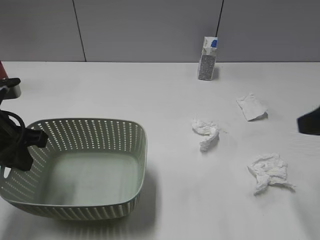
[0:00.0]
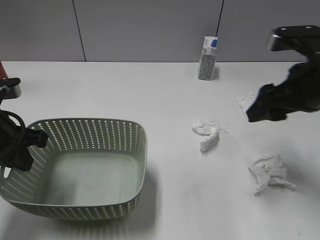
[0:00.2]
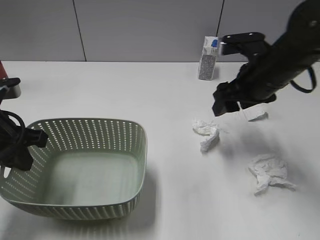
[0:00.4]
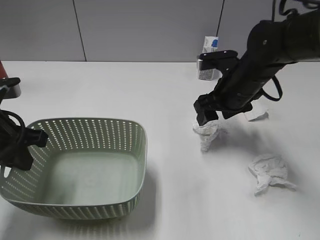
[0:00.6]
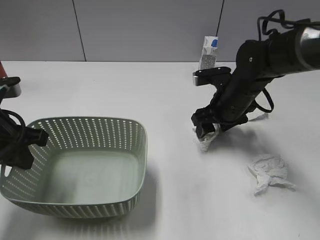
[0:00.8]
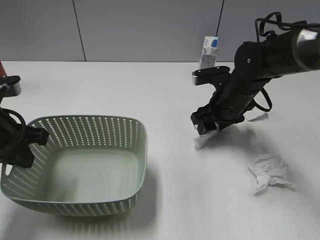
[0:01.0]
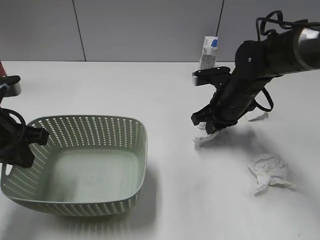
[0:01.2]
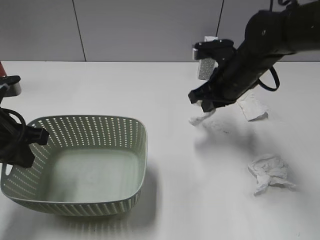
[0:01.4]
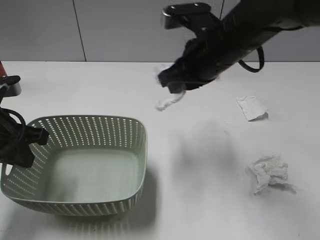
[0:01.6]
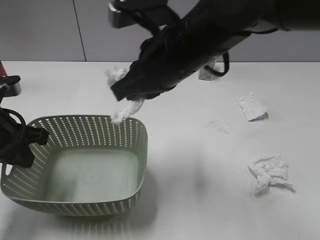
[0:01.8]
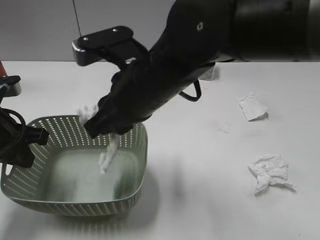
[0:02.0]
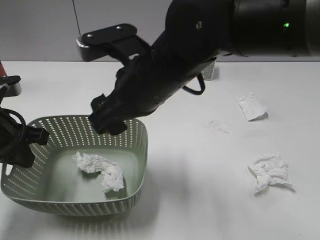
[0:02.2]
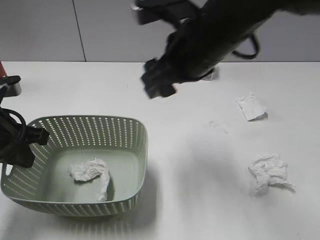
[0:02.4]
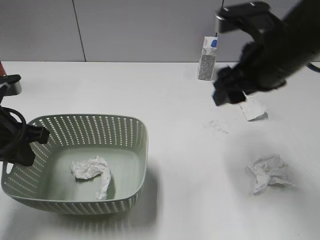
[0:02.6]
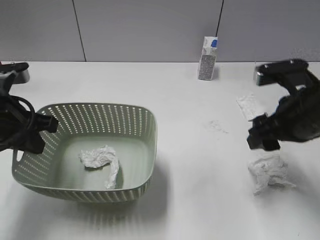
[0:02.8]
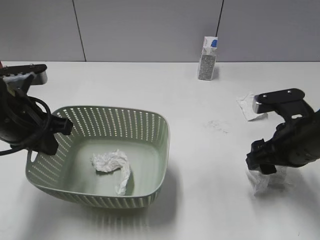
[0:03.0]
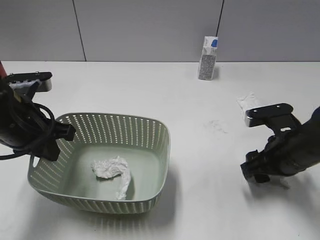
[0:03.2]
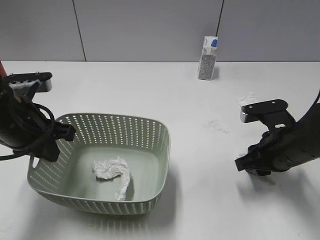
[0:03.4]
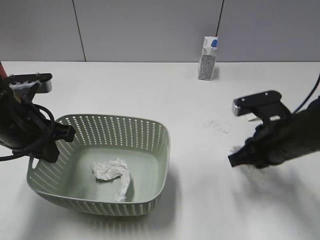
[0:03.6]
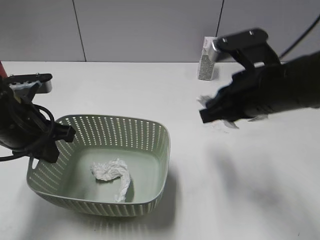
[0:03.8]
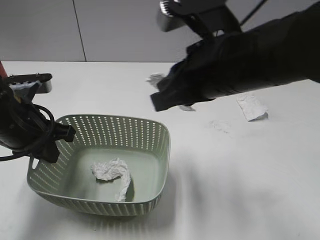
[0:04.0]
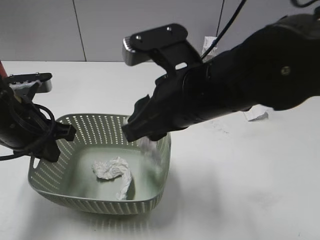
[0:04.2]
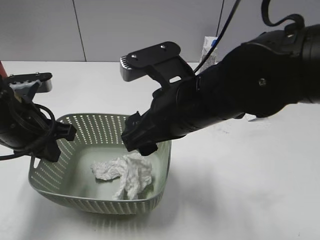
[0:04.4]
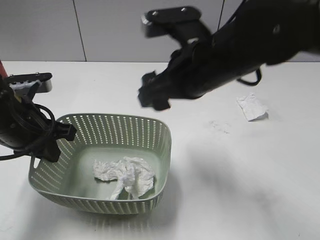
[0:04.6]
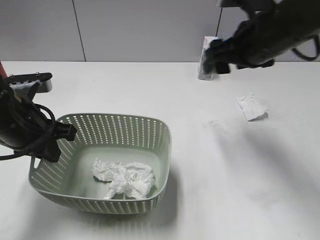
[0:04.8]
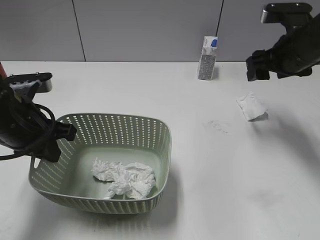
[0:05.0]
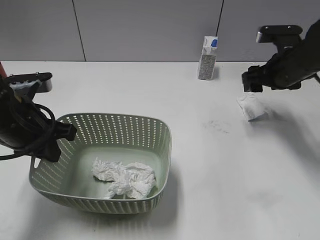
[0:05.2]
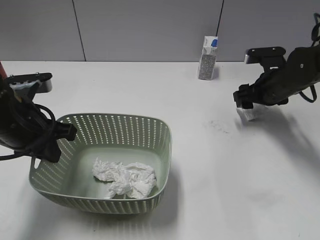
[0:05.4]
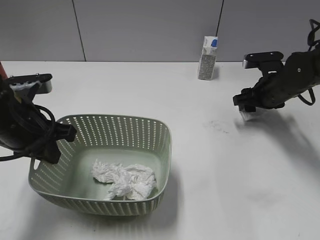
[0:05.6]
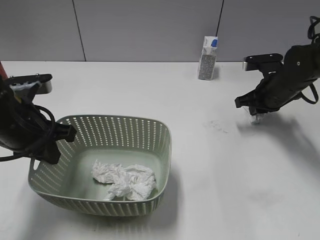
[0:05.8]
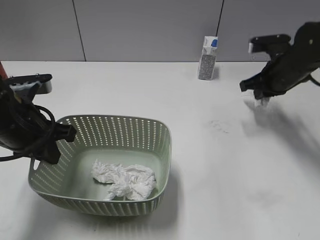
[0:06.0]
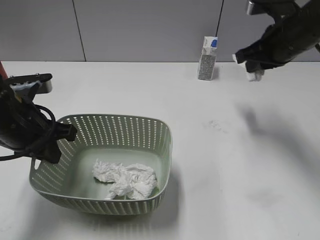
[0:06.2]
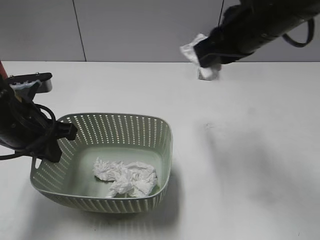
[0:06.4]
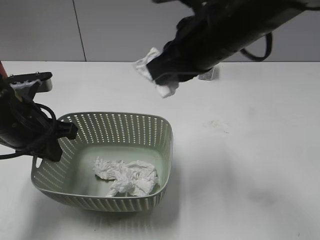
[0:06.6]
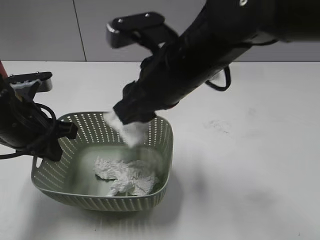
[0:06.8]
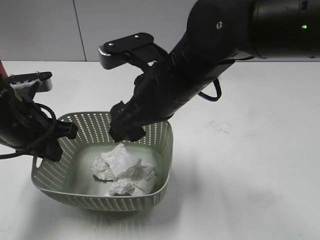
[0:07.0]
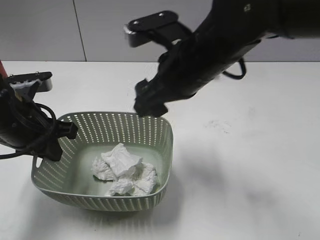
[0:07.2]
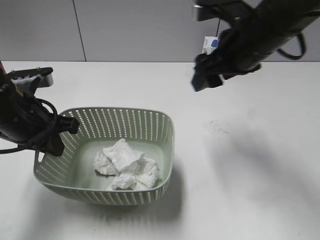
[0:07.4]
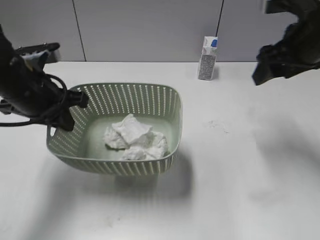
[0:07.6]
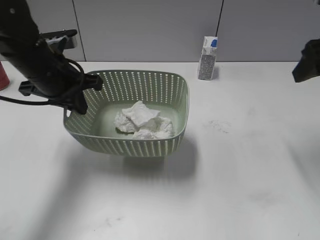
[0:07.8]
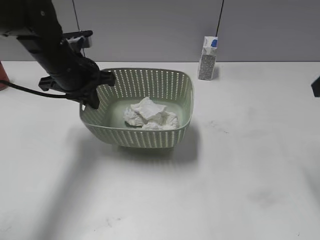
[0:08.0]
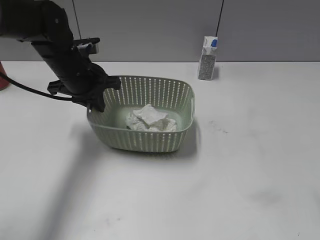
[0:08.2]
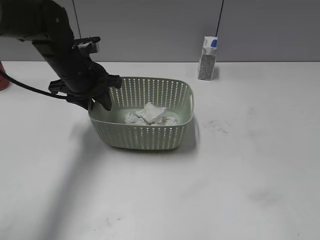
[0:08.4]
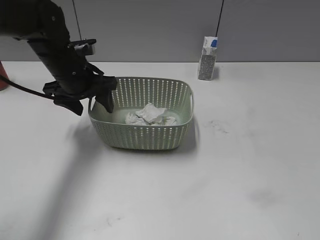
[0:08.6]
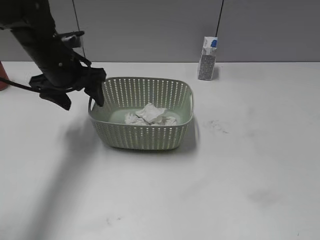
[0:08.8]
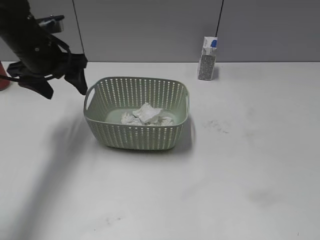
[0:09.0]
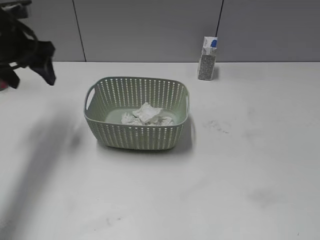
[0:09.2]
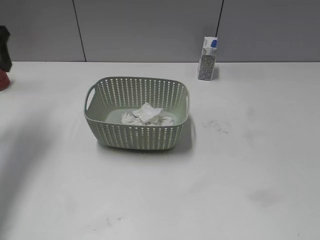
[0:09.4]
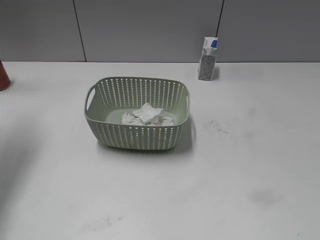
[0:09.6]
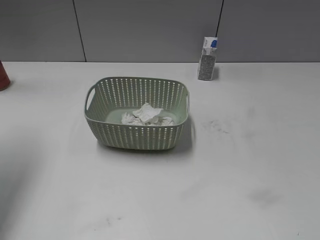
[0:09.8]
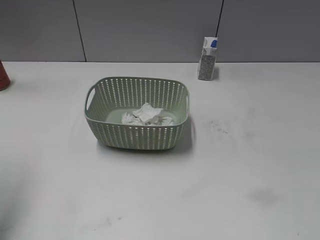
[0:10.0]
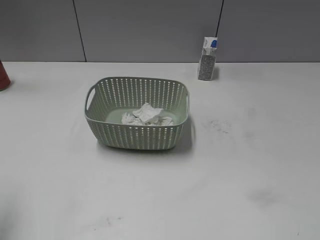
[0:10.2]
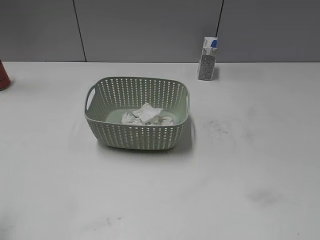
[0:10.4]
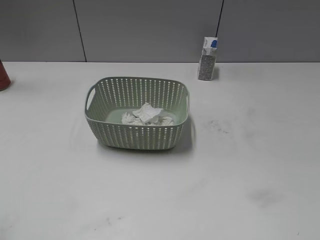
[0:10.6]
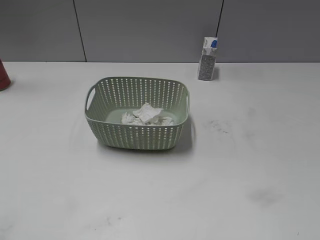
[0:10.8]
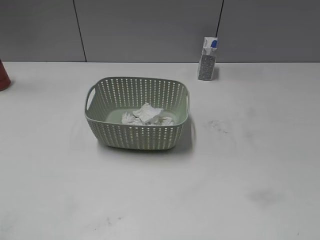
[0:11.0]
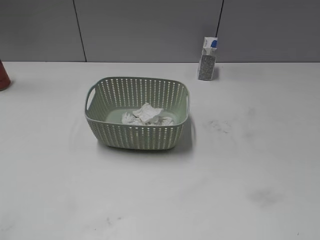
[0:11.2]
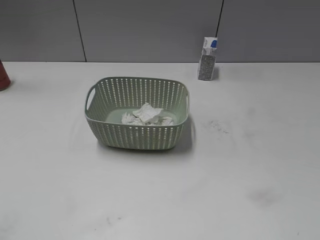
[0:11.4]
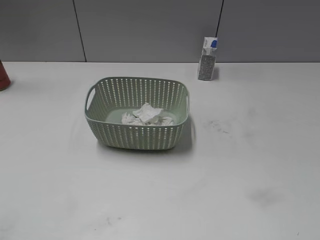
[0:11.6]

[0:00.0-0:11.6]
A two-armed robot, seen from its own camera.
Step, 0:00.0 to 0:01.2: Grasp the waste paper with right gripper.
Step, 0:01.4 to 0:02.2: Place the waste paper in the basket with right gripper.
Step, 0:02.4 to 0:03.4: Grasp the waste paper with right gripper.
Step, 0:03.6 to 0:04.4: Place the waste paper in the basket with right gripper.
Step, 0:04.6 to 0:05.8: Grasp the waste paper with right gripper.
Step, 0:06.0 to 0:07.0: Place the waste paper in the basket with right gripper.
Step, 0:07.2 to 0:08.4: Place the basket on the table with left gripper.
0:00.0 to 0:01.4: The right gripper shifts roughly 25 cm forward, to the left and downward, and closes its fingers.
0:01.4 to 0:02.8: The right gripper is displaced backward by some 10 cm, travels to the left and back again, some 15 cm each way, and opens up.
0:02.8 to 0:04.4: The right gripper travels to the left by about 15 cm, and closes, then opens again.
0:04.4 to 0:05.8: The right gripper heads to the right, forward and downward, covering some 30 cm, and closes.
0:05.8 to 0:07.2: The right gripper is displaced to the left, upward and backward by roughly 25 cm, and opens its fingers.
0:07.2 to 0:08.8: The right gripper heads to the right and backward, covering some 35 cm, while the left gripper moves forward, some 15 cm, and opens its fingers.
0:08.8 to 0:10.2: The left gripper shifts roughly 30 cm backward, upward and to the left.

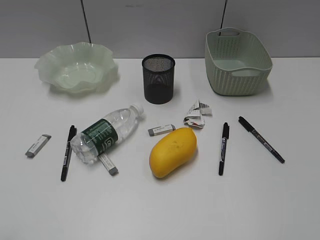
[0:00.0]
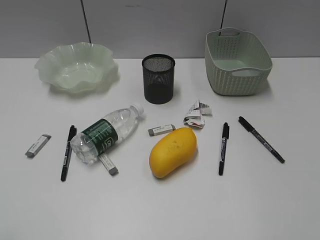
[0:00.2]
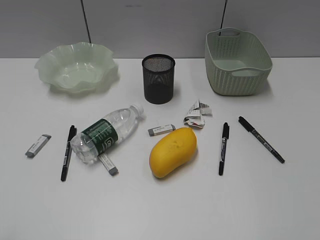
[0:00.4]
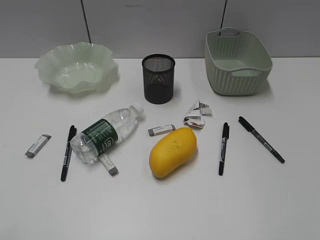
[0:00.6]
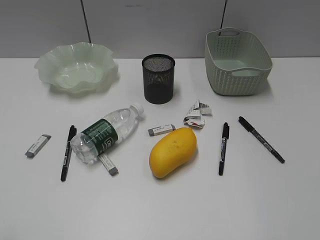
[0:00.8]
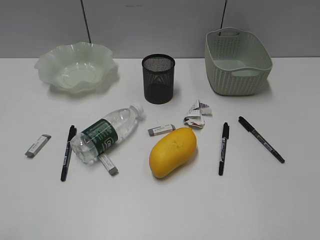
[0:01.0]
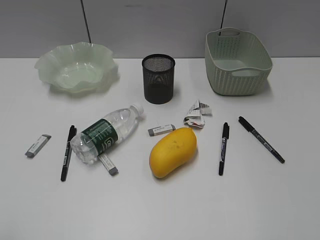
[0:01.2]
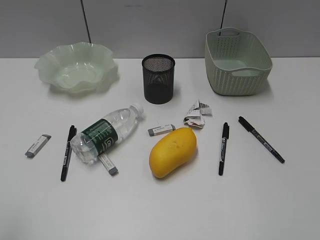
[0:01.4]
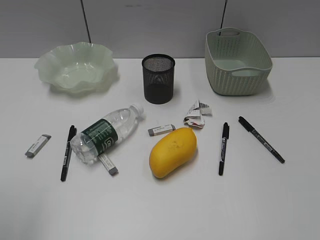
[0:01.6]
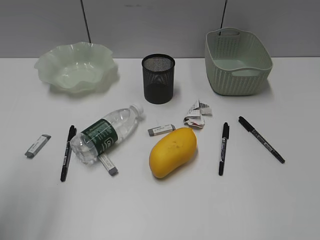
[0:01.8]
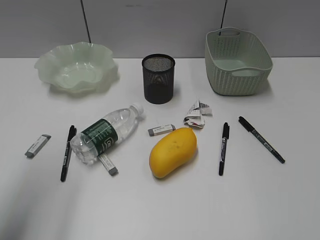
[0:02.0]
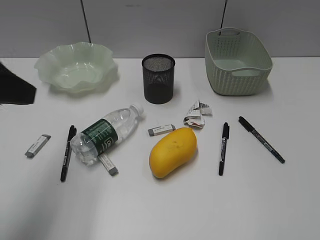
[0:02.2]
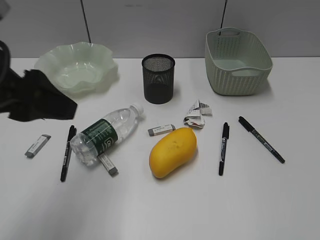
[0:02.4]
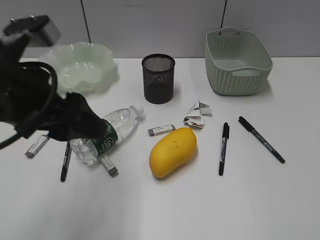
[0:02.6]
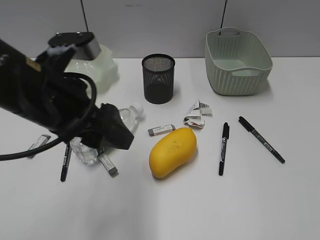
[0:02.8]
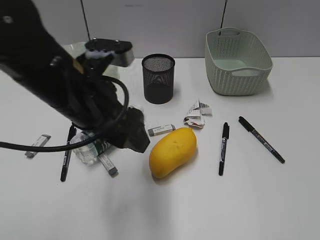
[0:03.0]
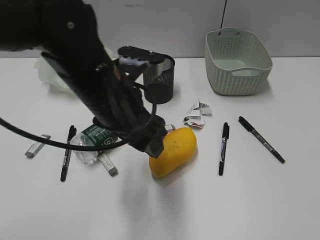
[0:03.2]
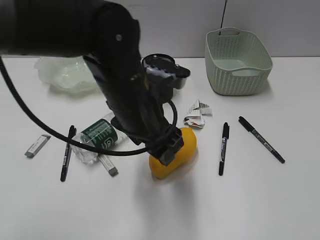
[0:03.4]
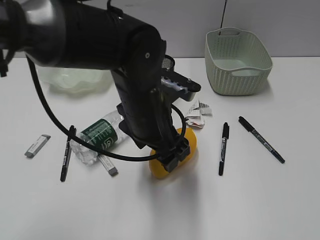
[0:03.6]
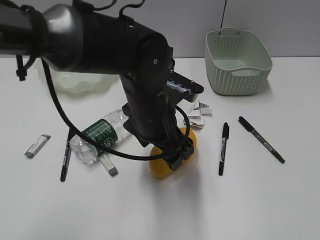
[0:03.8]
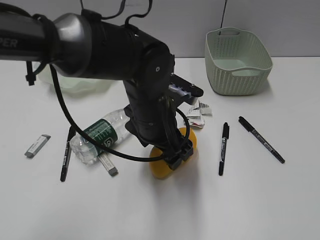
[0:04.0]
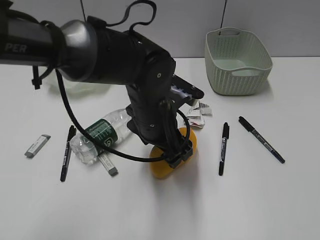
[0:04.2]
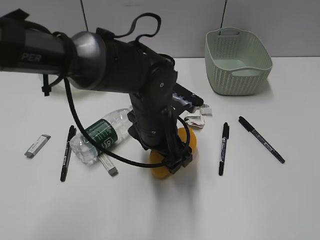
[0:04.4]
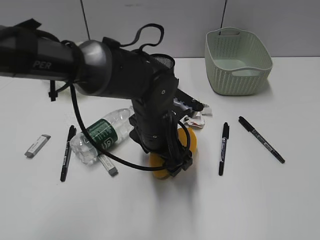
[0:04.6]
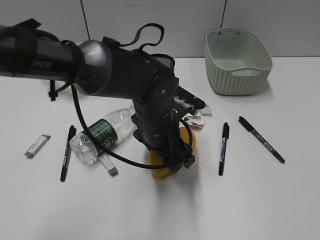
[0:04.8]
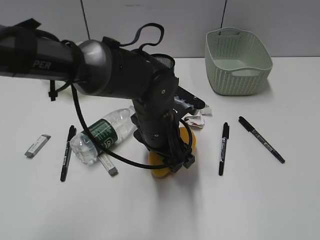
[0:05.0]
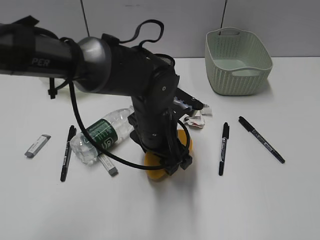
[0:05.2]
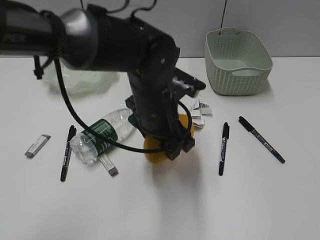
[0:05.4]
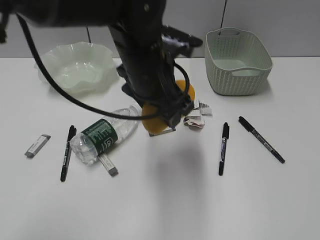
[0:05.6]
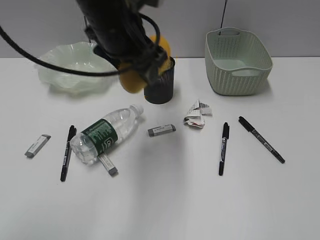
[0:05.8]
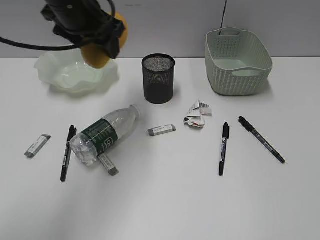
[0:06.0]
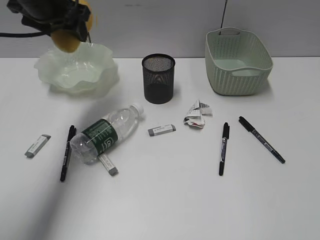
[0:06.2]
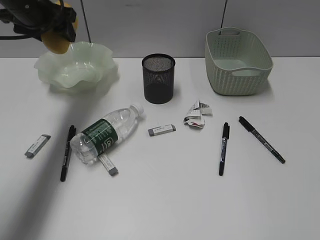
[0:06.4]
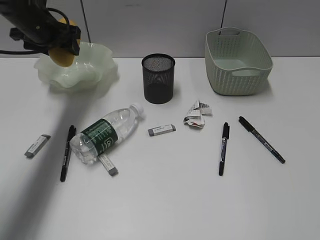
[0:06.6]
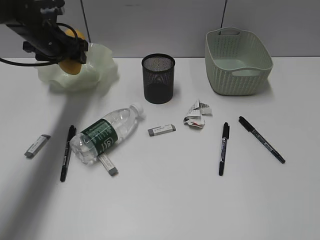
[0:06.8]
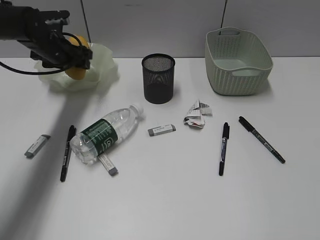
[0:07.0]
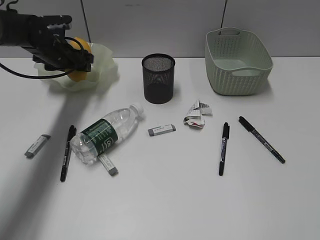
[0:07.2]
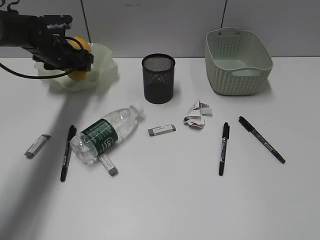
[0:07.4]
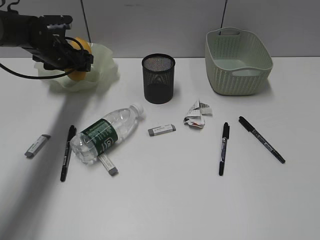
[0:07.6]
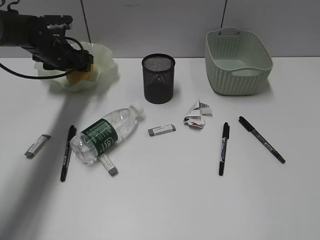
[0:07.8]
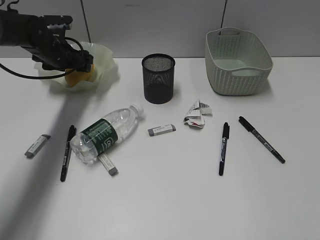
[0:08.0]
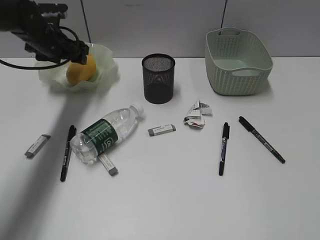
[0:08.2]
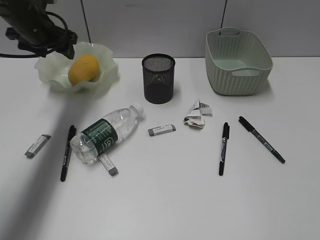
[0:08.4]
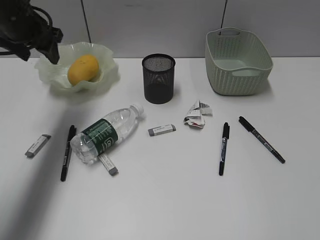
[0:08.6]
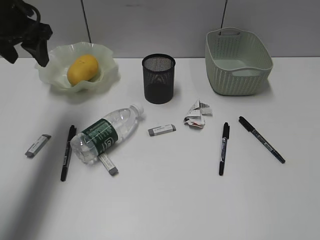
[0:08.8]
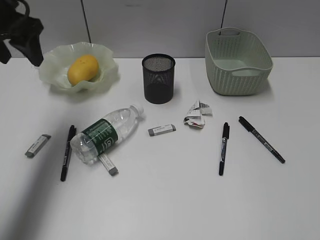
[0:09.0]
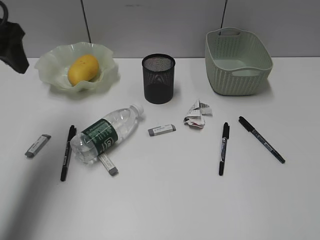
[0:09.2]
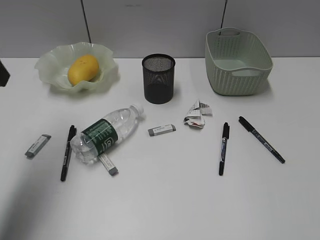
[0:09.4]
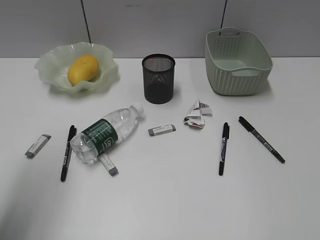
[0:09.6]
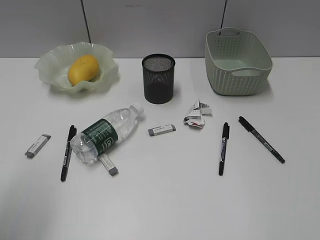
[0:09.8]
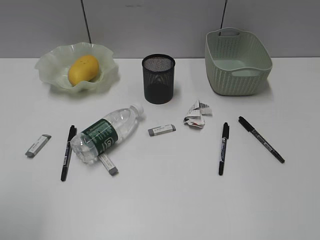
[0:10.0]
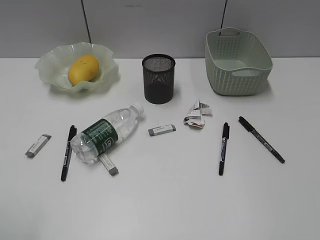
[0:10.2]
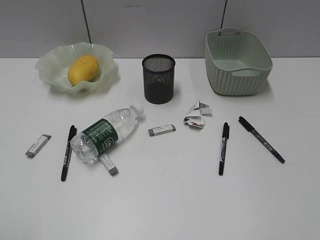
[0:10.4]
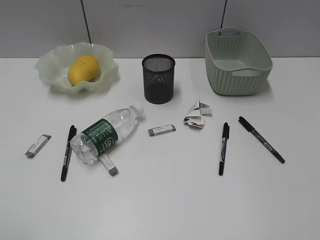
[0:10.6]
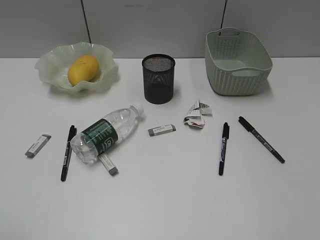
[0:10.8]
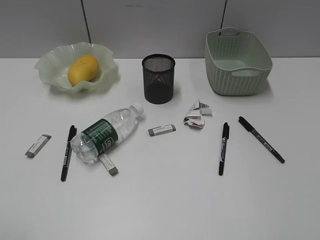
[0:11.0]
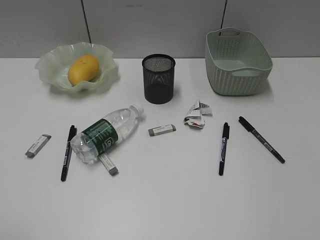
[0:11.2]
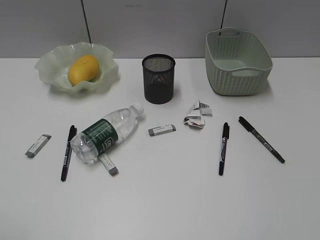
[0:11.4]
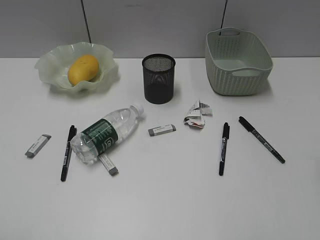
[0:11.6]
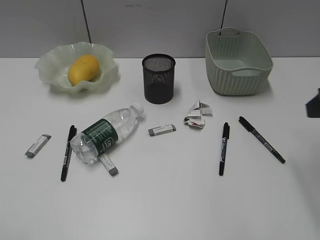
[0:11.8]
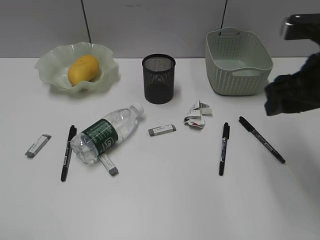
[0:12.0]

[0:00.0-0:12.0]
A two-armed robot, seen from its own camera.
Step, 0:01.2 to 0:04.8: Grasp the mango with left gripper.
Step, 0:05.0 to 0:08.2: Place the mango in the plate with left gripper.
0:01.6 to 0:03.0: The left gripper goes approximately 25 cm to the right, forward and downward.
0:03.0 to 0:04.4: The left gripper is displaced to the right, downward and forward by approximately 15 cm.
0:04.4 to 0:06.0: The left gripper travels upward, to the left and forward by about 20 cm.
0:06.0 to 0:07.6: The left gripper travels downward, forward and to the left by approximately 25 cm.
0:07.6 to 0:09.0: The left gripper travels upward and backward by roughly 20 cm.
0:09.0 to 0:10.4: The left gripper heads backward, covering approximately 35 cm.
0:10.4 to 0:12.0: The right gripper goes roughly 25 cm forward.
